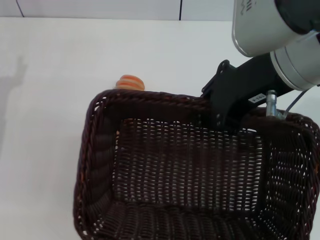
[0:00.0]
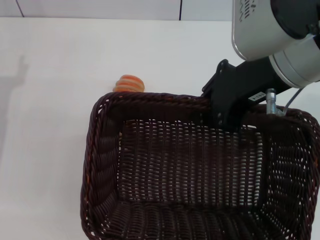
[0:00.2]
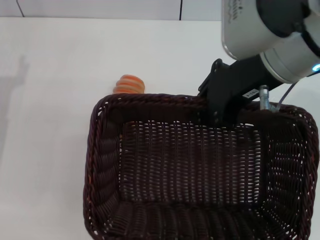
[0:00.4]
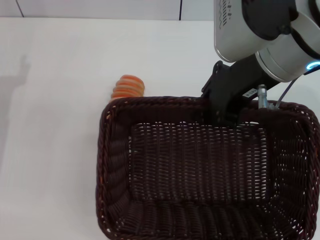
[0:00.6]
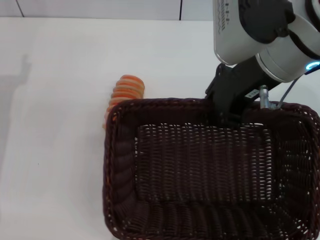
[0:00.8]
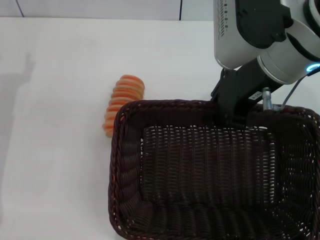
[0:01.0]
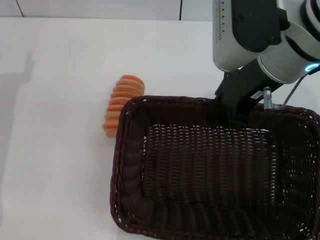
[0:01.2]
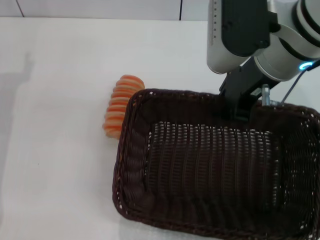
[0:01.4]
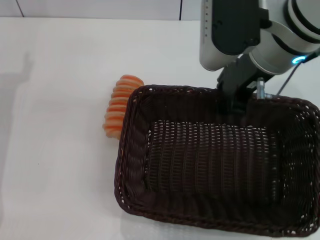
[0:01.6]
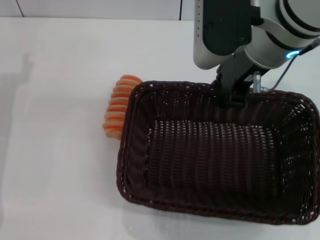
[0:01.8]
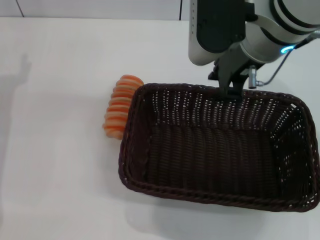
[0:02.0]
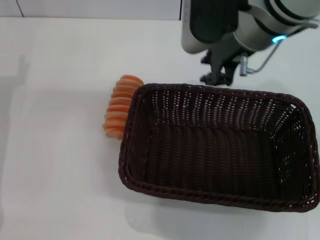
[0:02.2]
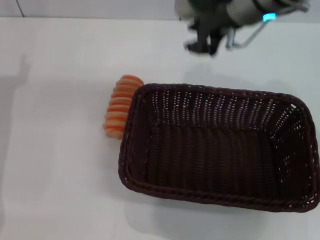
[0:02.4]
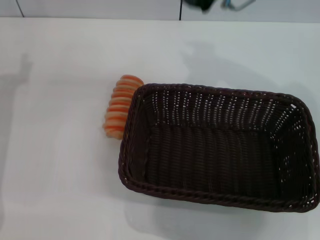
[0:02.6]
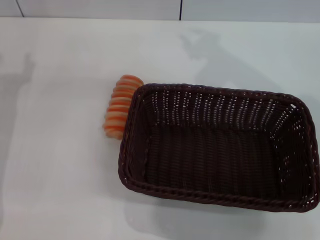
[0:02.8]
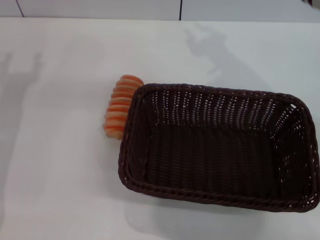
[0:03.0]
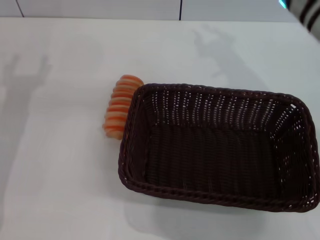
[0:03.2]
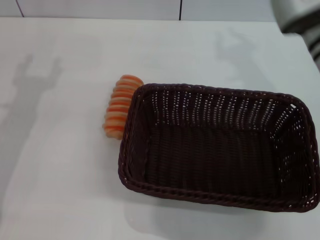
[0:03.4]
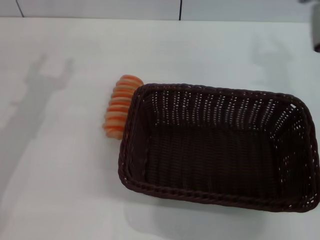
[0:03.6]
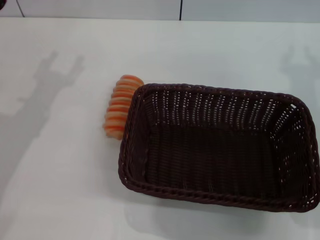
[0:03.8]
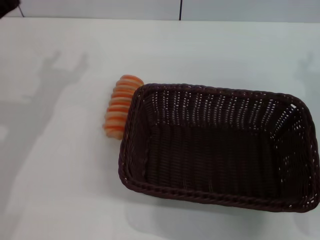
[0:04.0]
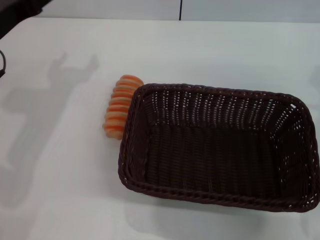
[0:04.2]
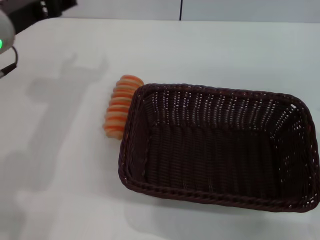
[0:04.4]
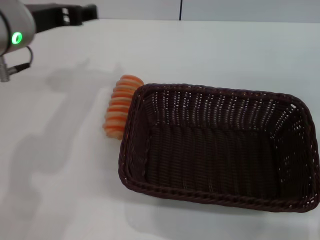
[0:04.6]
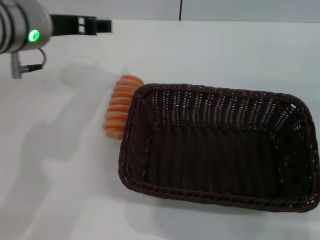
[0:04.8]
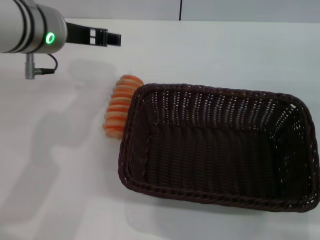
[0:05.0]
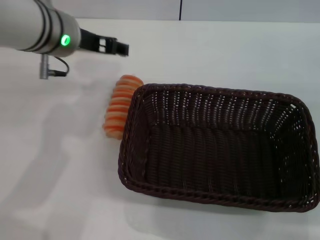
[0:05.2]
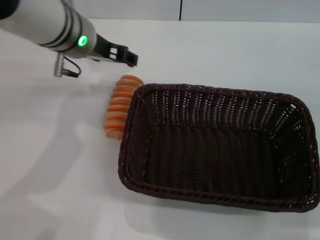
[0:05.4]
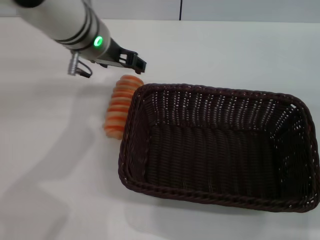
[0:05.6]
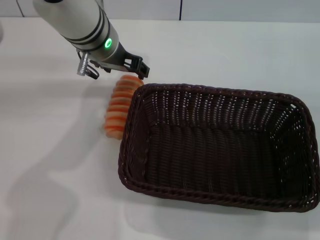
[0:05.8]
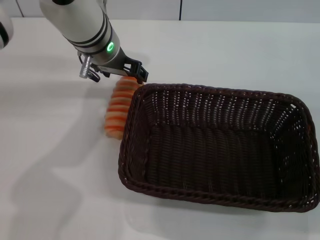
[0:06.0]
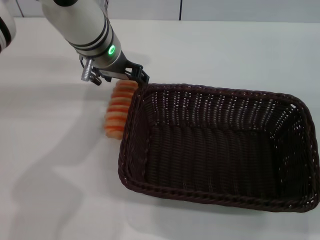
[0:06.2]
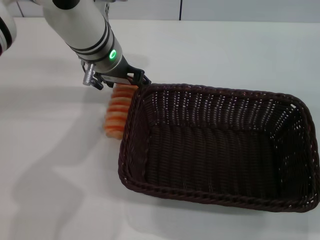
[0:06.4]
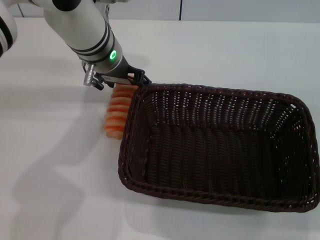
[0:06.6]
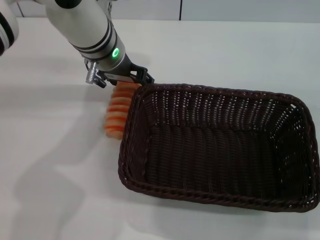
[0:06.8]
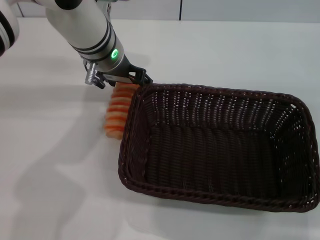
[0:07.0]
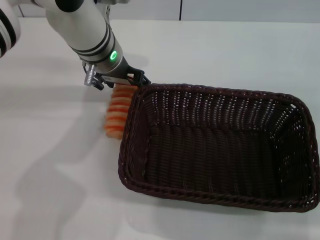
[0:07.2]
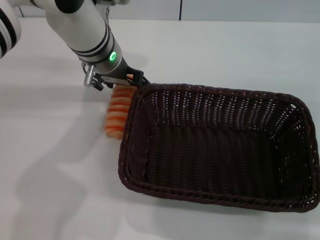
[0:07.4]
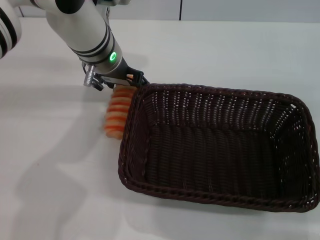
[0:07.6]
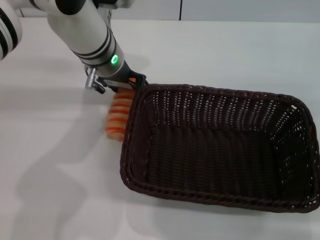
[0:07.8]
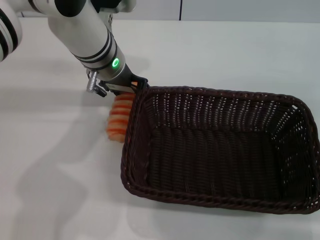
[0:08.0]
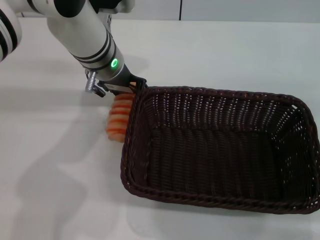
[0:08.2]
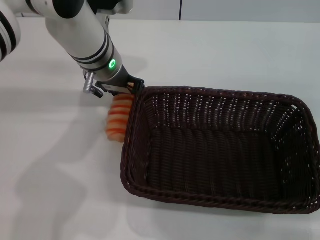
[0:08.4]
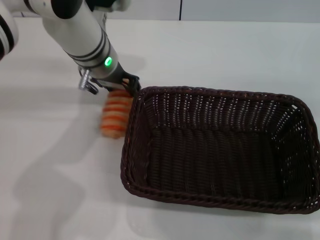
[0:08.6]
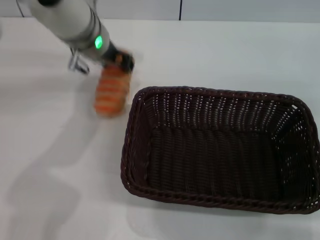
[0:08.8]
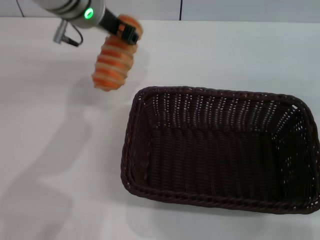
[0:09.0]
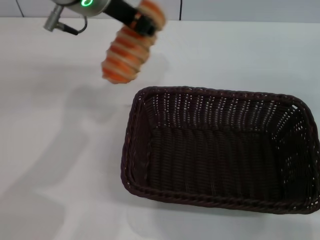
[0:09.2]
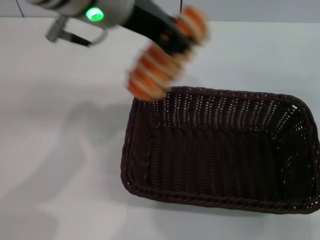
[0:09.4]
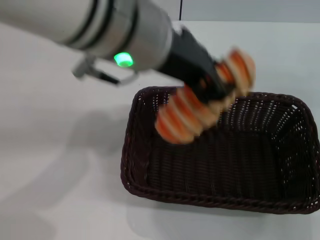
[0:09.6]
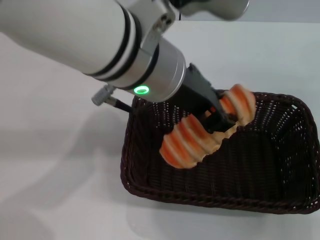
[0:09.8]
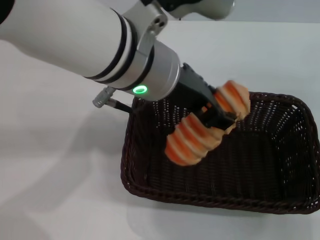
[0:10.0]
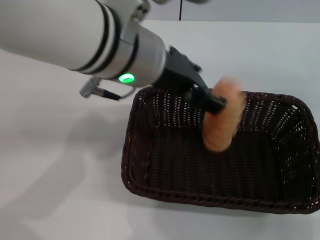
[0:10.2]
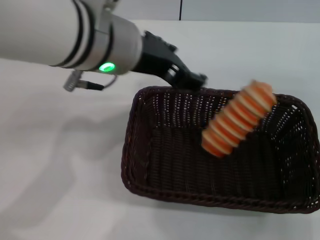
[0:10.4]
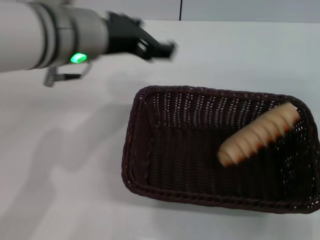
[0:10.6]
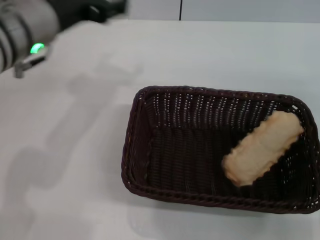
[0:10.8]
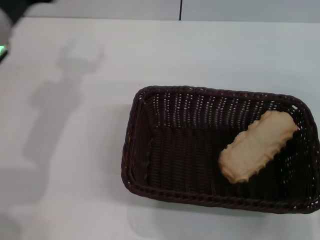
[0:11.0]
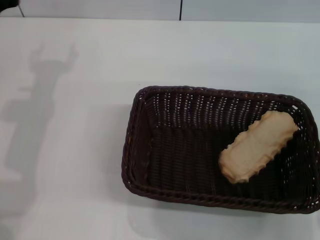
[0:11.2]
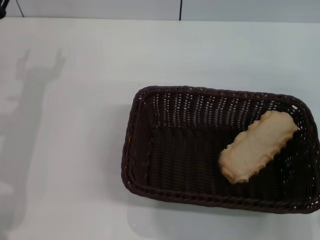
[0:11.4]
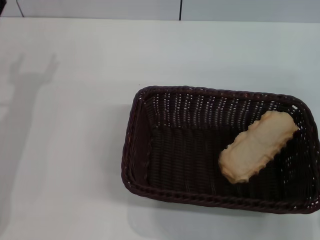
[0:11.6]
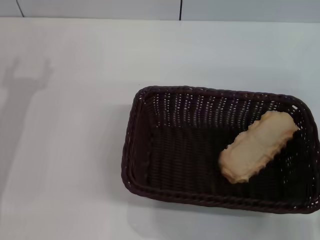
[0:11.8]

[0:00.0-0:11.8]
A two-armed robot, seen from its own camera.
Step, 0:00.0 to 0:02.0: Place the dark basket in the center of view with the right gripper.
Step, 0:02.2 to 0:08.8: Pick up the long bread with the left gripper.
Step, 0:09.0 to 0:10.4: Place the long bread into the dark basket with the left gripper.
0:00.0 to 0:01.4: The right gripper ends up roughly 5 cm from where it was.
0:03.0 to 0:04.4: The left gripper moves upward and to the right, approximately 15 cm.
0:04.4 to 0:06.0: The right gripper ends up roughly 5 cm from where it was; the left gripper moves to the right and forward, about 15 cm.
0:06.0 to 0:07.4: The grippers stay close to where they were, moving slightly.
0:07.4 to 0:08.8: The left gripper closes.
0:08.8 to 0:10.4: The left gripper shifts about 15 cm backward and upward, and opens its fingers.
0:10.4 to 0:11.8: The left gripper travels to the left and downward by roughly 25 cm.
